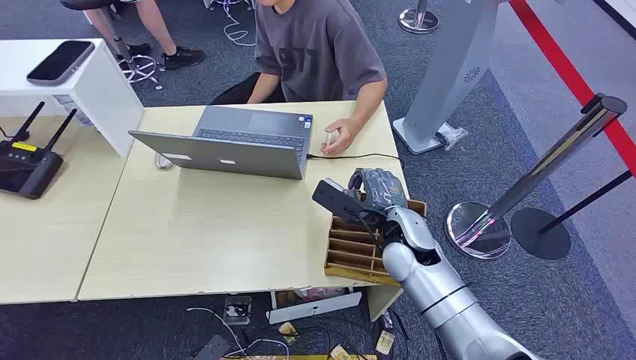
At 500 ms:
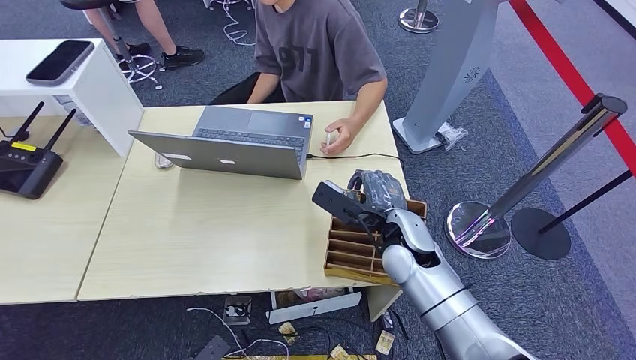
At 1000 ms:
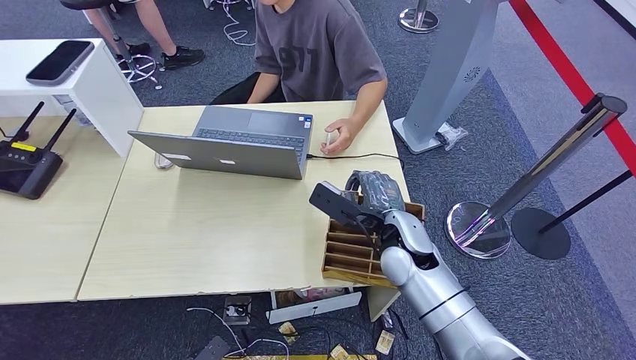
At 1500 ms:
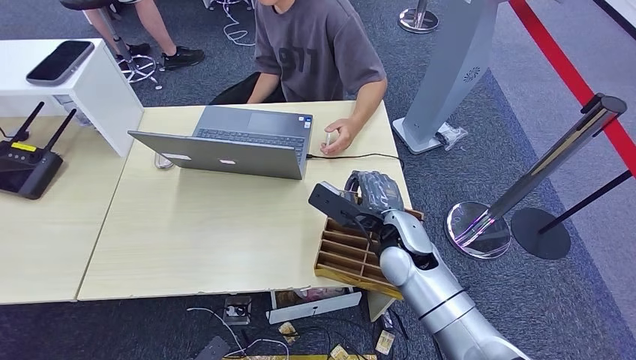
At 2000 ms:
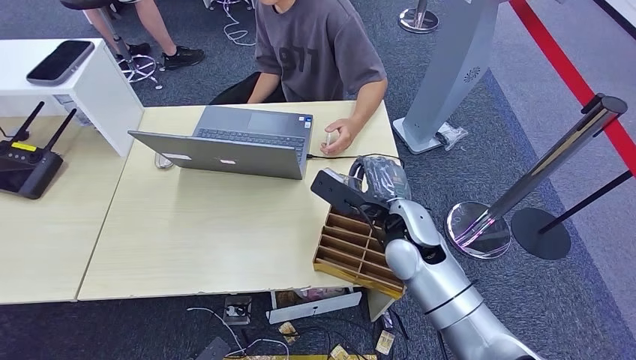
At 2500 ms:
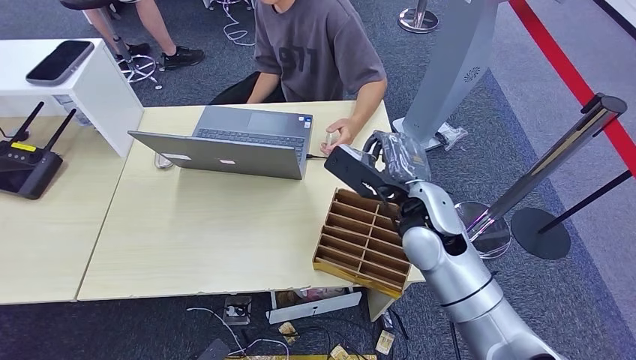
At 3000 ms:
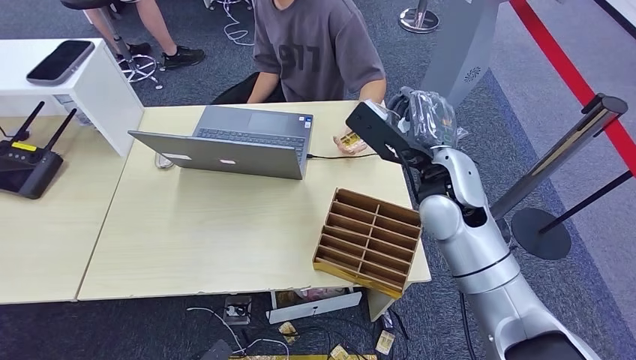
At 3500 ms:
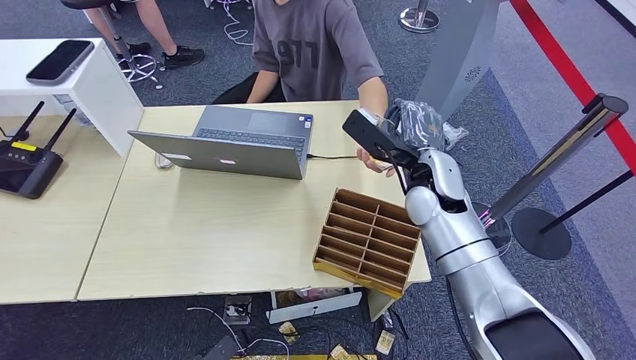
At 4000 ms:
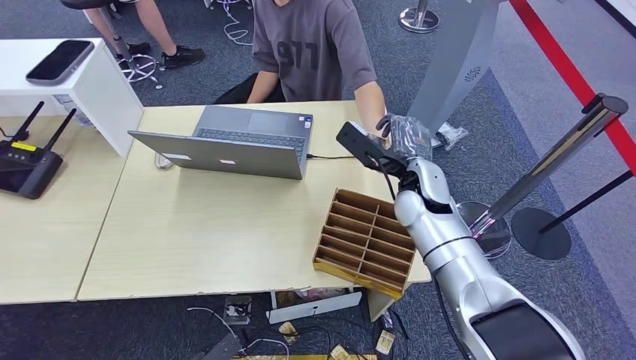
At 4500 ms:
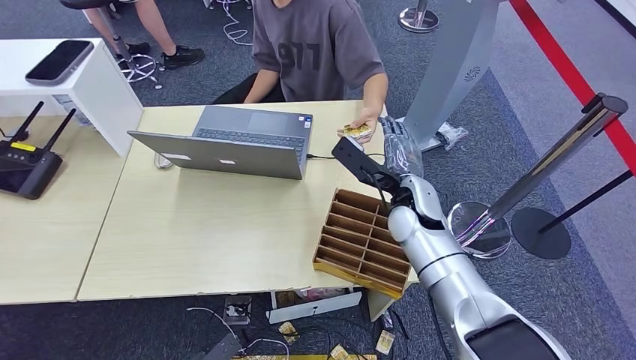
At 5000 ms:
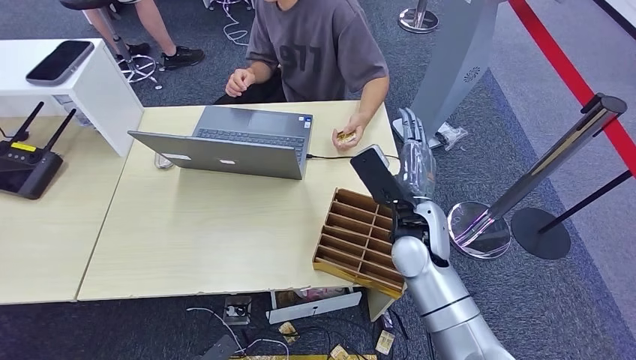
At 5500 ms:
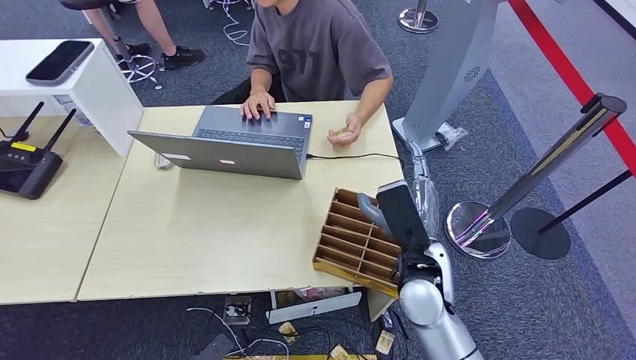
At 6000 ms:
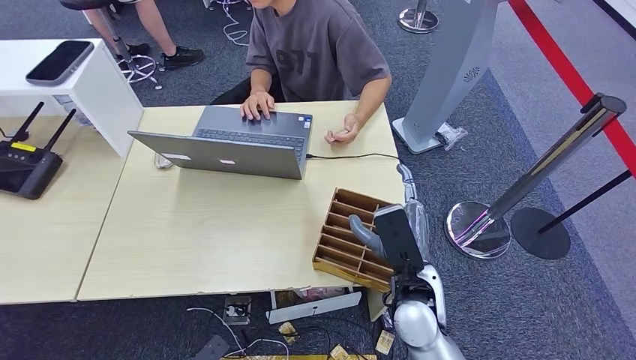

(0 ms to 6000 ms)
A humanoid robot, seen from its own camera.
Step, 0 ms - 2500 ms: Pick up the key card from the card box.
Step, 3000 ms - 6000 ms: Hand the key card to the target.
2000 ms - 4000 ms: The right hand heads forward, covering some 10 cm, and goes upward and returns, approximately 10 cm each way.
4000 ms - 6000 ms: The right hand heads backward, covering about 15 cm.

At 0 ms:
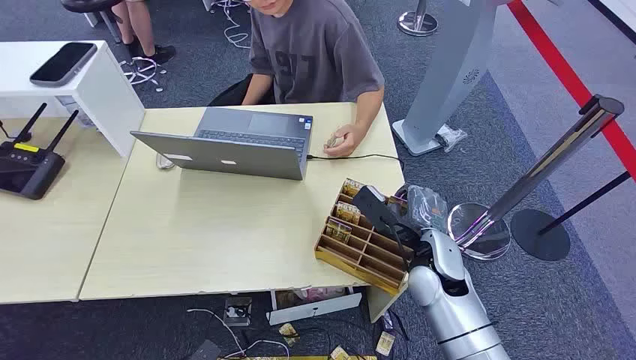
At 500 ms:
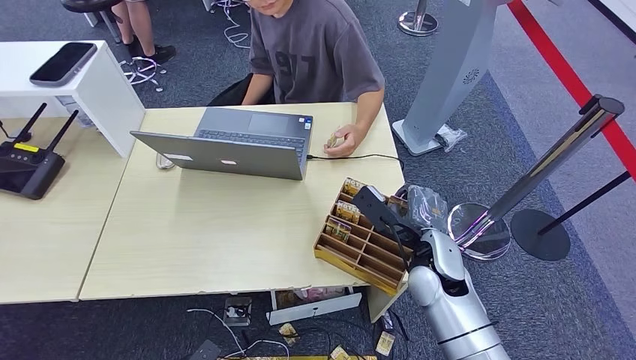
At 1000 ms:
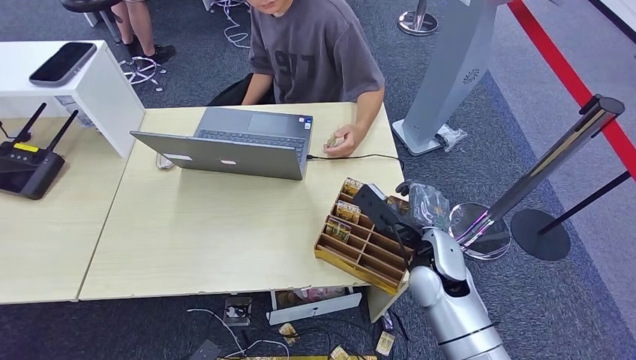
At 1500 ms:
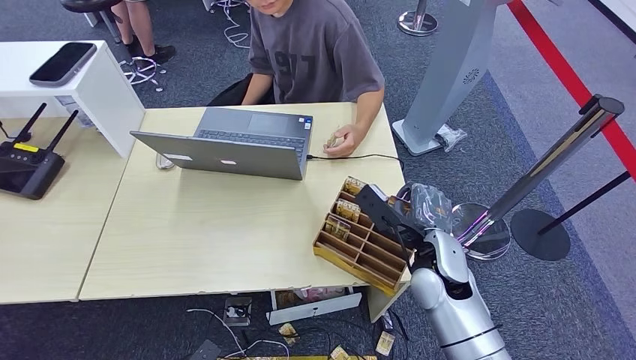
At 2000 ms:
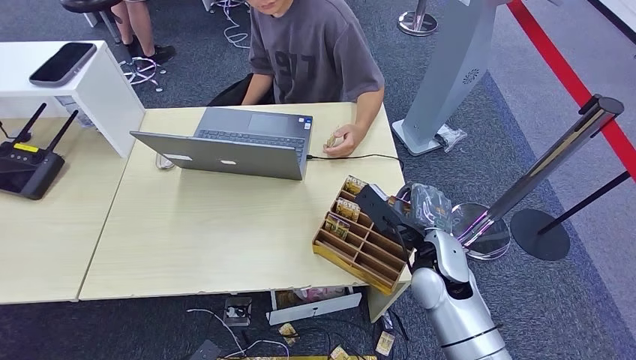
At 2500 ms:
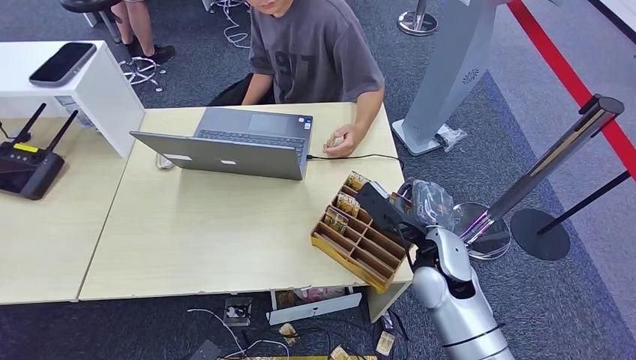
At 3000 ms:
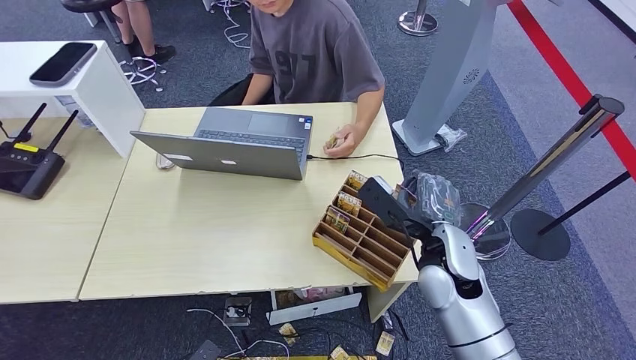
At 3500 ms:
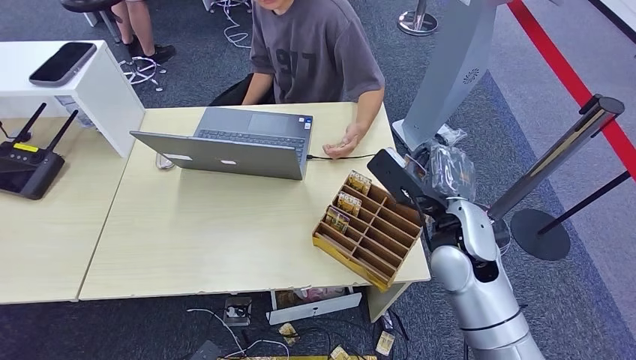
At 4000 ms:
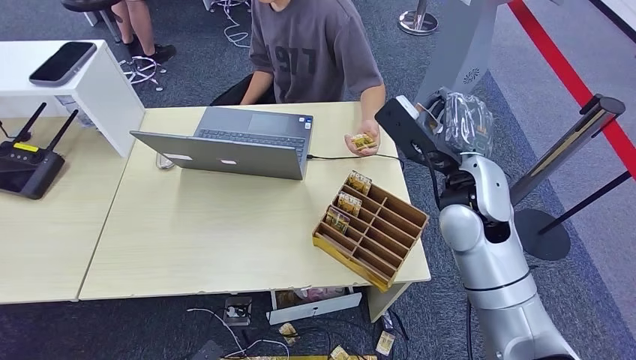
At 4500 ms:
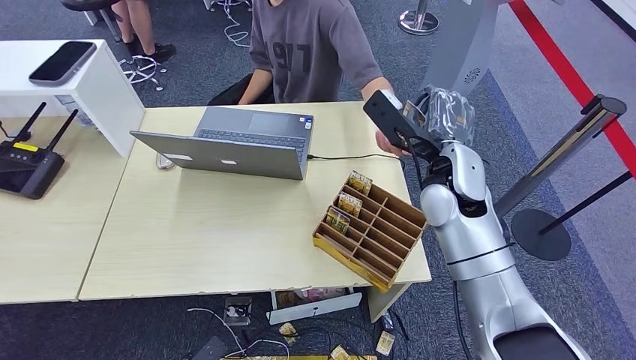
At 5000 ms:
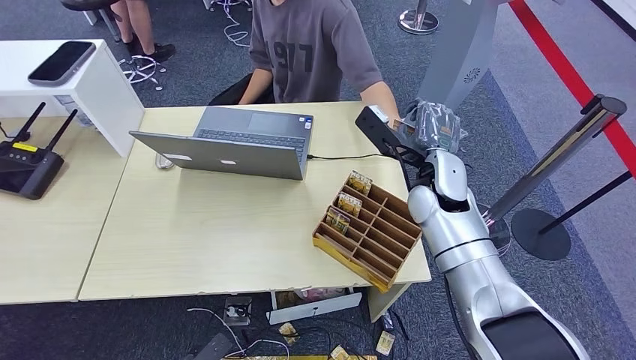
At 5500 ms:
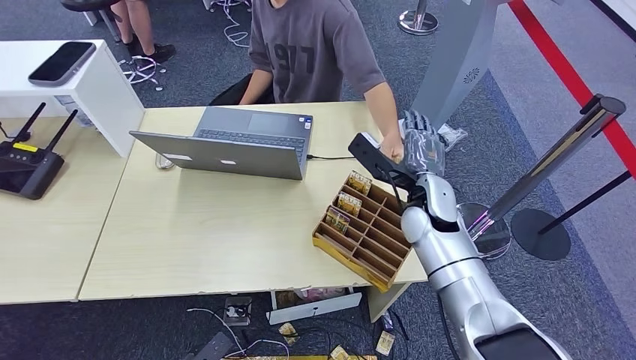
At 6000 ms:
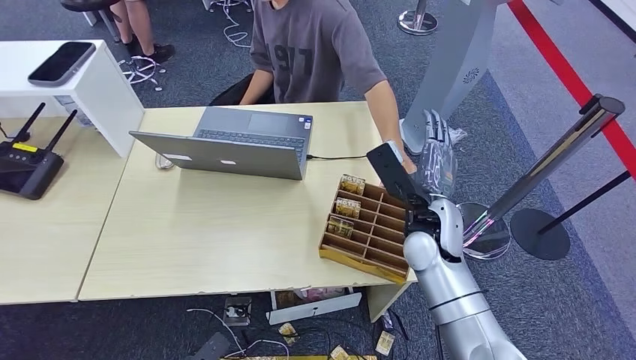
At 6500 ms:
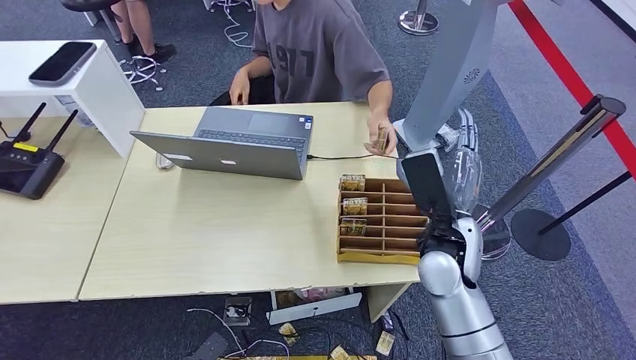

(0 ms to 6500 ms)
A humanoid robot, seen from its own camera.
Step, 0 ms - 3000 ms: Pick up the key card from the card box.
Step, 3500 ms - 6000 ms: Hand the key card to the target.
2000 ms - 4500 ms: The right hand moves upward and forward, about 15 cm.
4500 ms - 6500 ms: The right hand shifts roughly 10 cm backward and downward.
